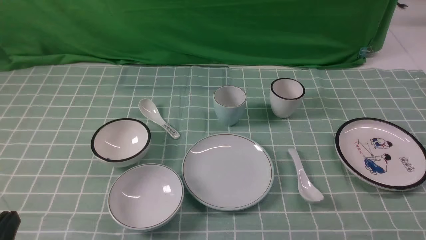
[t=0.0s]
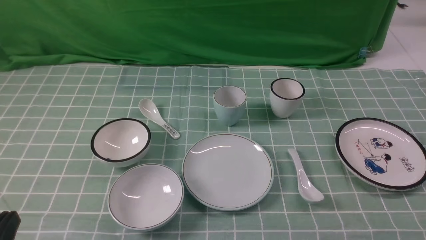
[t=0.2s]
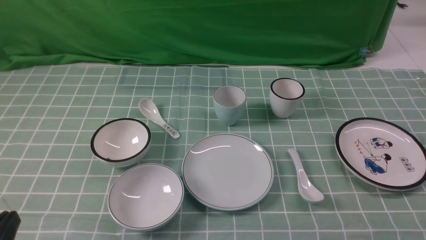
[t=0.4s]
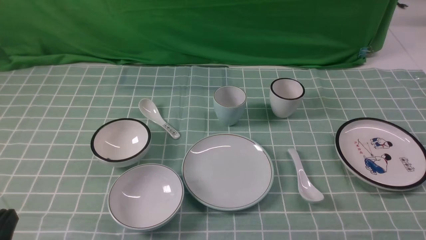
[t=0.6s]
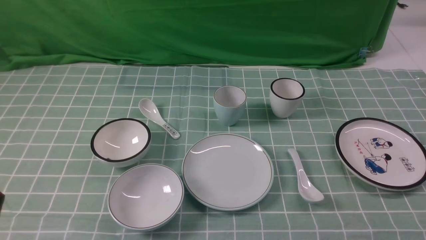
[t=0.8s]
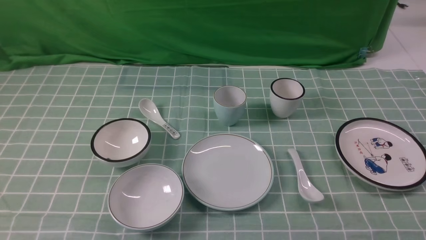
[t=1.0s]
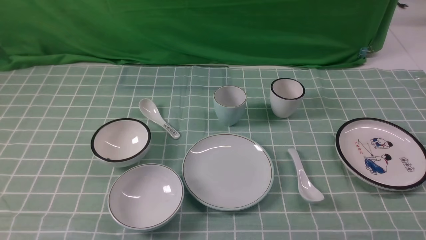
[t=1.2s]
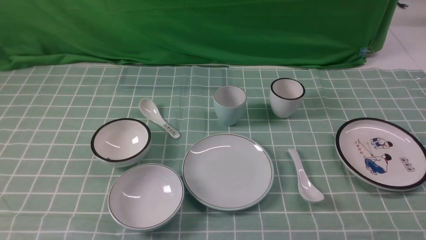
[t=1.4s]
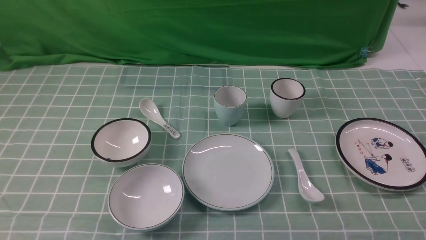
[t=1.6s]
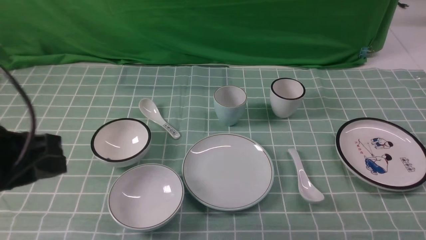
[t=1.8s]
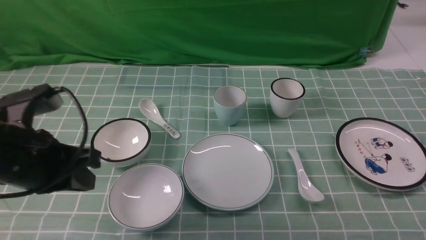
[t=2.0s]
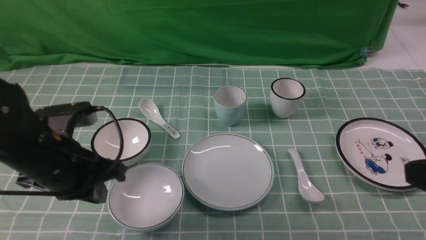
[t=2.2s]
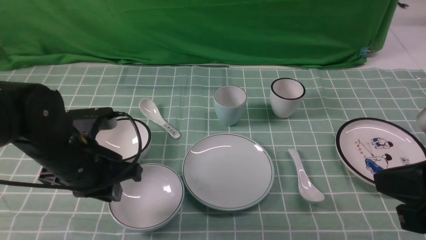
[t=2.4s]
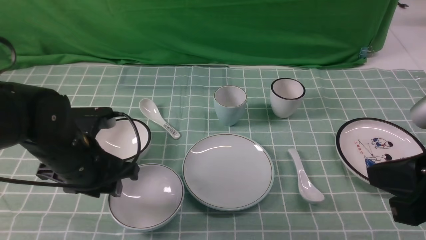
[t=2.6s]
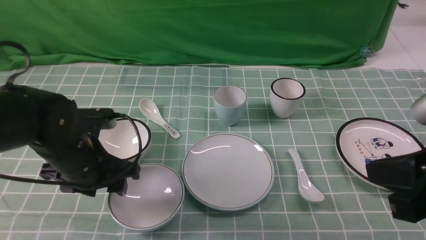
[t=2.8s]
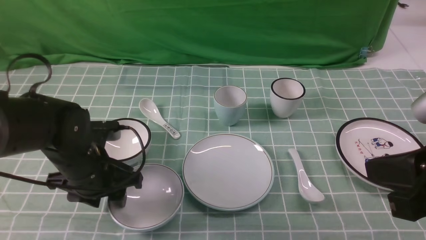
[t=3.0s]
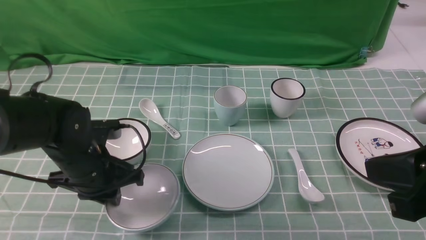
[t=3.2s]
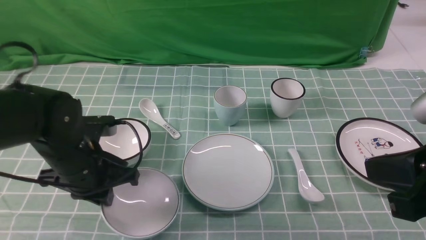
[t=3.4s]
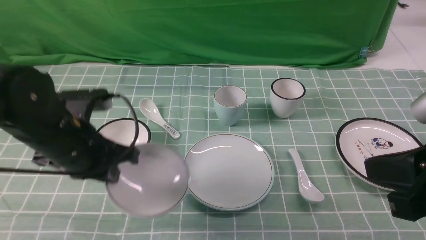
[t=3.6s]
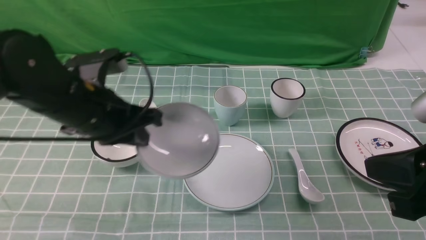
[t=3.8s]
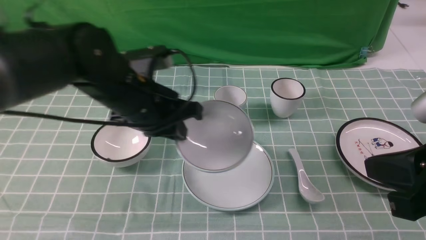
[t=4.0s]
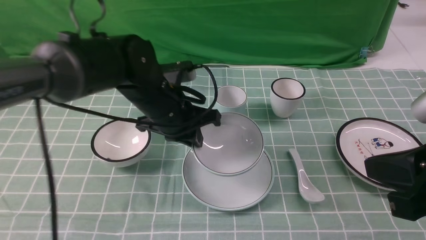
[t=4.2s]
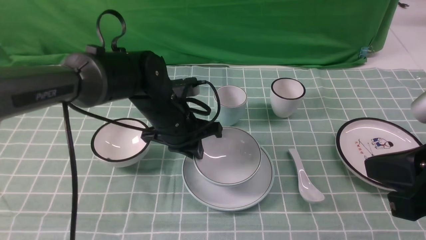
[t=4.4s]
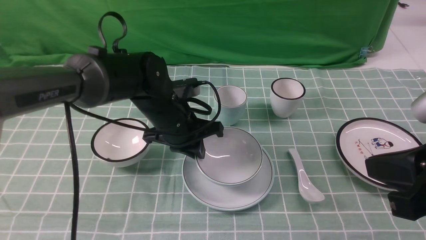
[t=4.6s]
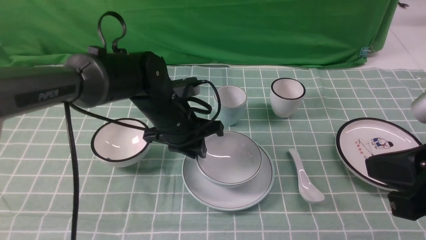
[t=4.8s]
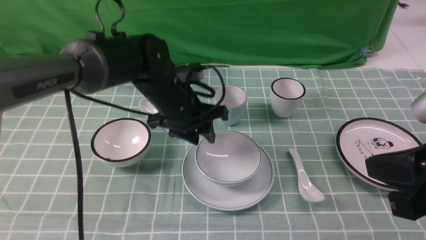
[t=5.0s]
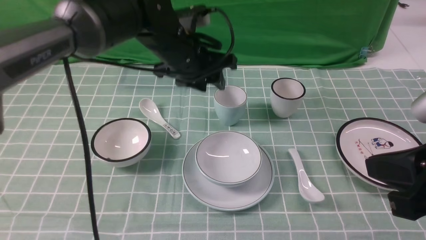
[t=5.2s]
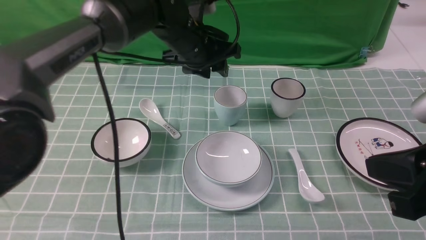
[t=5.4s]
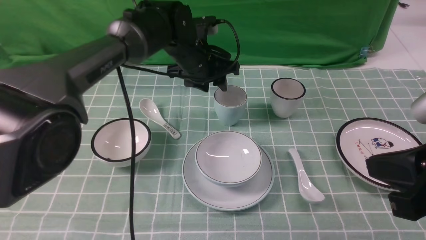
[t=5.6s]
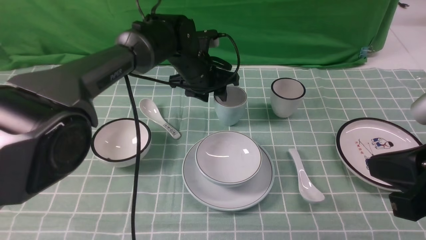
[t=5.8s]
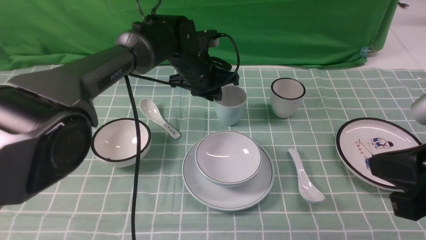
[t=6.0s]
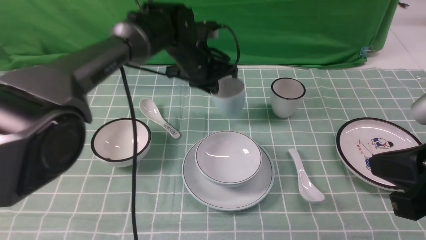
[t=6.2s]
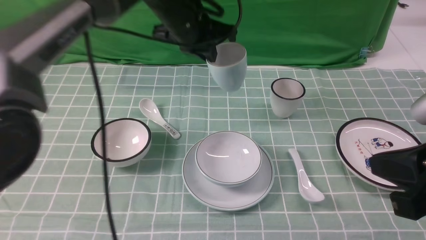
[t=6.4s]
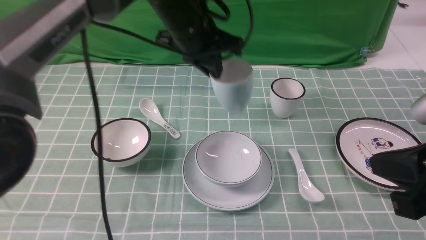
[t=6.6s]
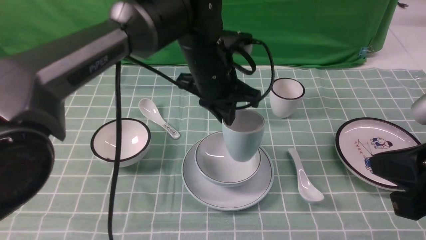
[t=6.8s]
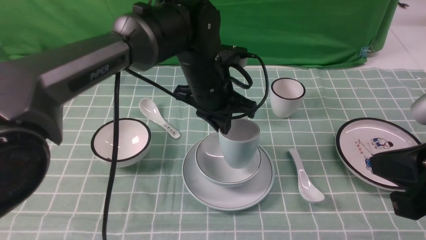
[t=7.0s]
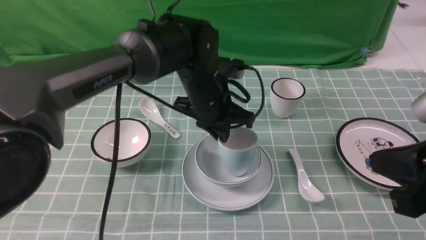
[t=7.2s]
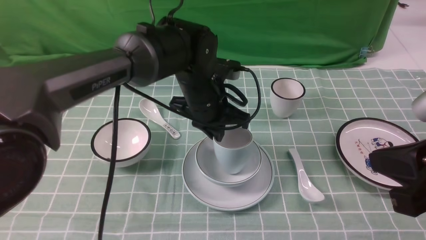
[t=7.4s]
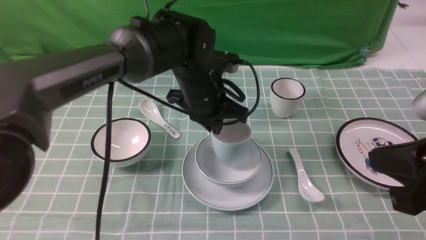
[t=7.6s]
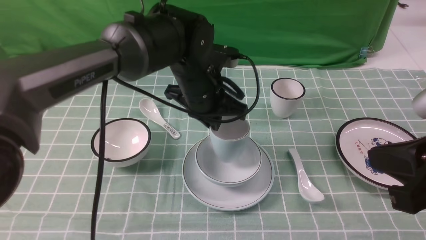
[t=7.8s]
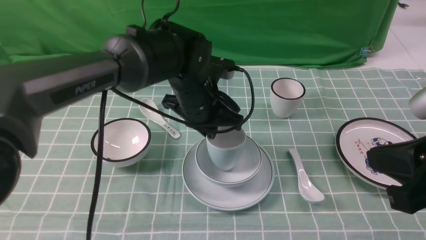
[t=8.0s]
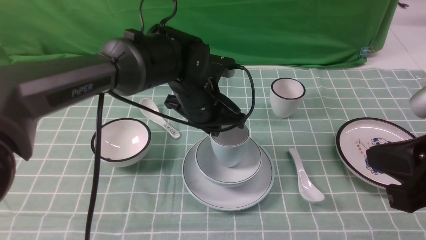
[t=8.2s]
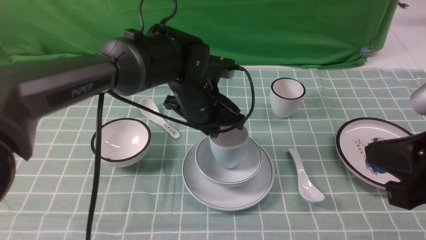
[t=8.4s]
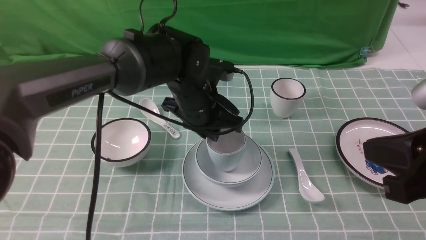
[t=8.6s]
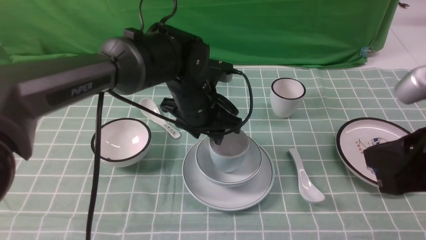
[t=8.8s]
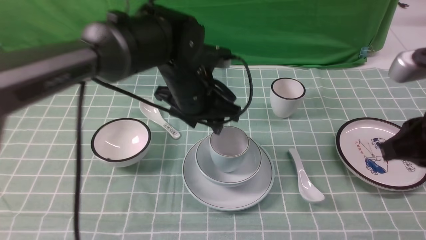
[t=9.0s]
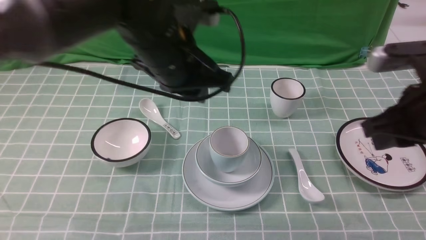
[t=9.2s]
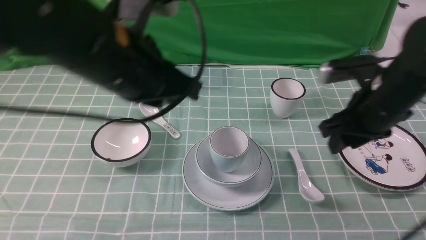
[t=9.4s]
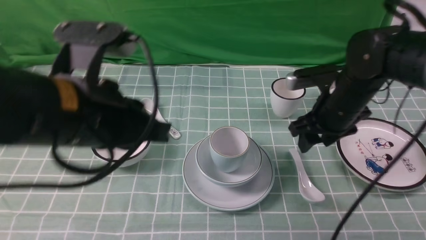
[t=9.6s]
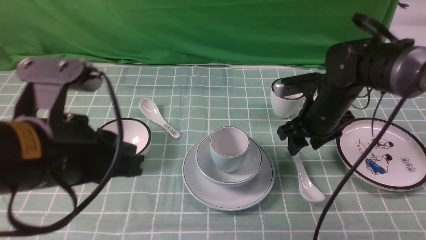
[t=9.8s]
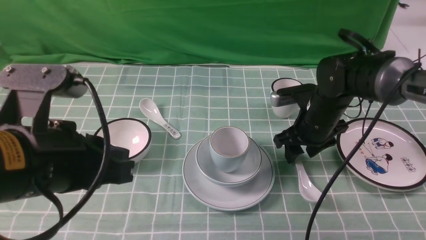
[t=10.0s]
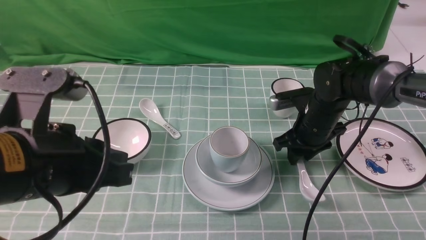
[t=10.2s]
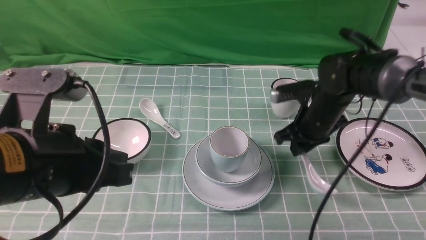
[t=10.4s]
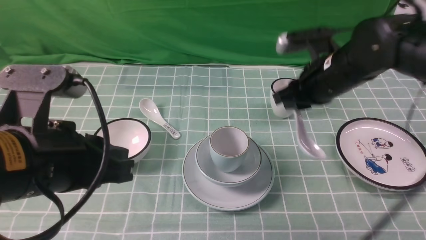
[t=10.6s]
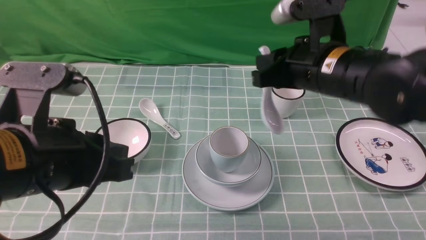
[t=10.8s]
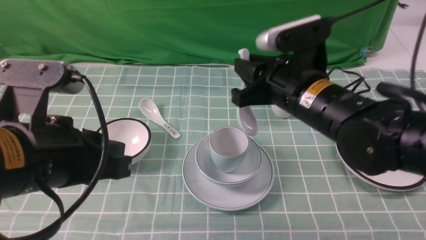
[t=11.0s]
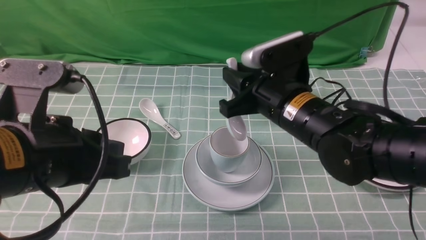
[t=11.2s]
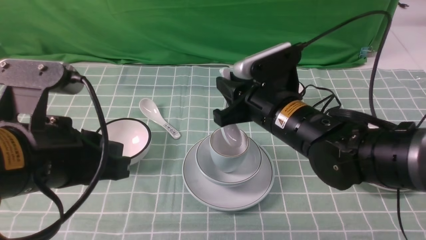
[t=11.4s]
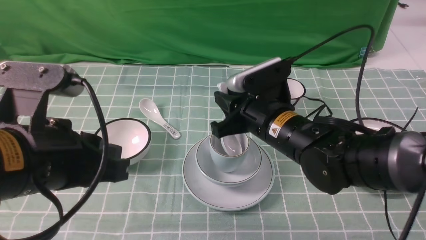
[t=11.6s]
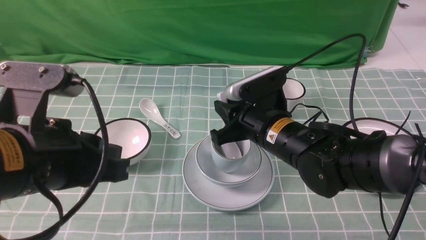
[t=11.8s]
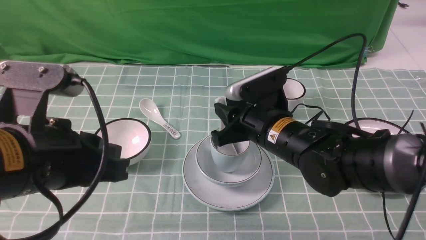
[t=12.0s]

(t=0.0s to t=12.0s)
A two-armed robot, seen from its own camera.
Task of the whole recording: place the bowls on the plates on the blue tablecloth, put the cups on the bowls, and place the spoons in the cups.
Step, t=0.0s - t=3.2s: Grasp the bowl with the left gripper.
Step, t=3.4s - t=4.8s: Place the bowl on the plate with the left gripper.
Step, t=5.0s - t=6.0s: Grasp the cup with the left gripper.
Step, t=6.2s - t=8.8s: Place the cup on the bowl with the left gripper.
Step, t=9.0s - t=10.2s: Grasp the spoon with the right gripper.
Step, t=10.4s - t=12.0s: Place the spoon on the cup with the right gripper.
t=1.6s - t=3.0s: The right gripper heads upward, to the left and forward, covering roughly 15 cm, and closes up, while the left gripper travels forward and downward by roughly 25 cm, and opens up.
t=3.0s - t=4.4s: The left gripper heads to the right and forward, covering roughly 15 cm, and closes.
t=4.4s - t=6.0s: The left gripper is displaced forward by approximately 10 cm, and opens its fingers.
t=6.0s - t=7.6s: The left gripper moves backward, about 10 cm, reaches about 10 cm upward, then returns, and closes up.
t=7.6s - t=9.0s: The left gripper opens up.
t=9.0s - t=10.4s: The right gripper travels forward and downward by some 25 cm, and opens; the left gripper heads backward and to the left, covering approximately 25 cm, and closes.
t=10.4s - t=12.0s: The right gripper moves backward and to the left, approximately 15 cm.

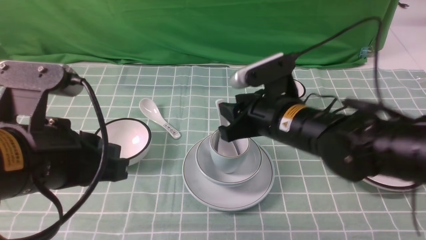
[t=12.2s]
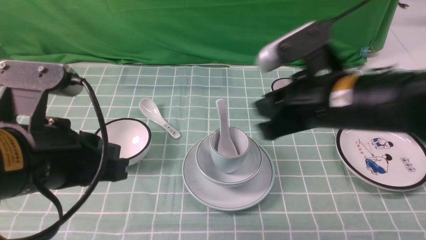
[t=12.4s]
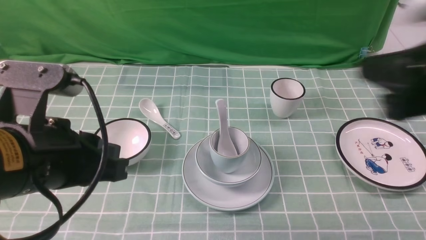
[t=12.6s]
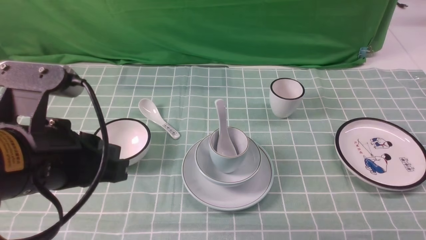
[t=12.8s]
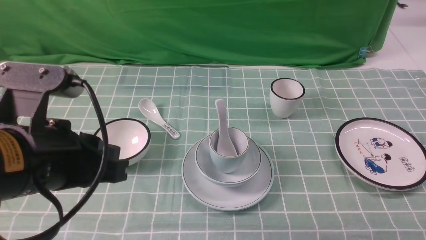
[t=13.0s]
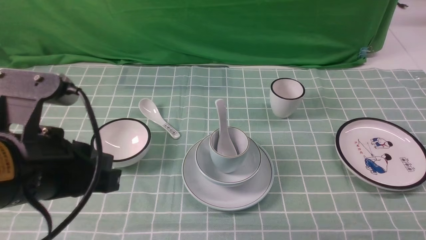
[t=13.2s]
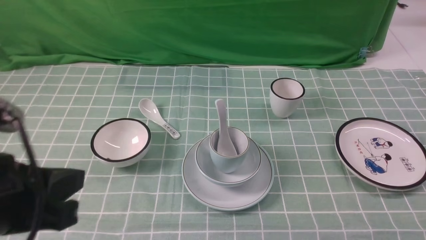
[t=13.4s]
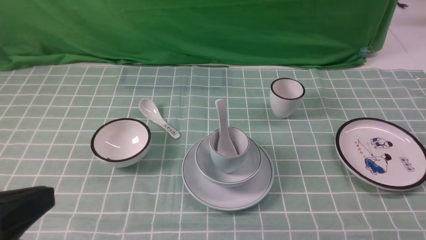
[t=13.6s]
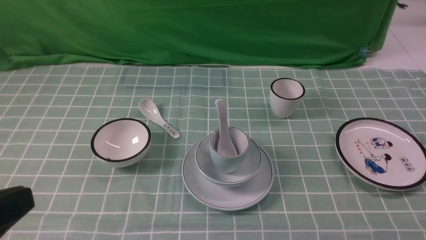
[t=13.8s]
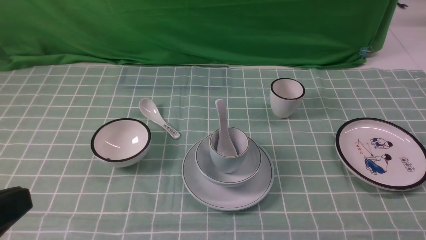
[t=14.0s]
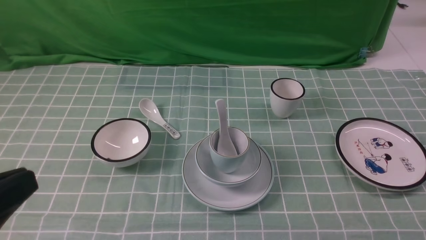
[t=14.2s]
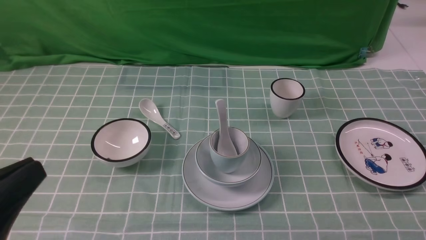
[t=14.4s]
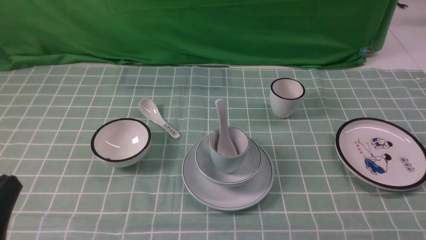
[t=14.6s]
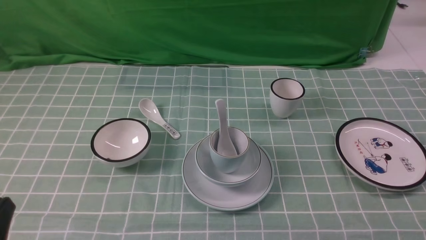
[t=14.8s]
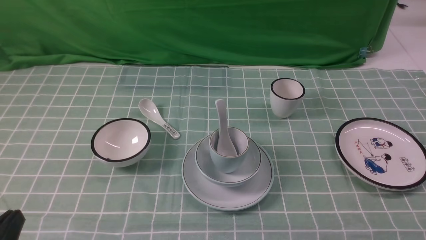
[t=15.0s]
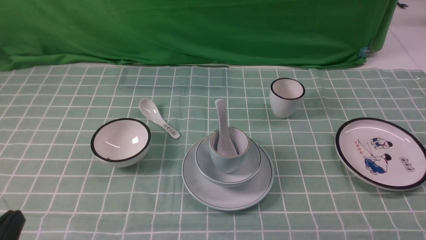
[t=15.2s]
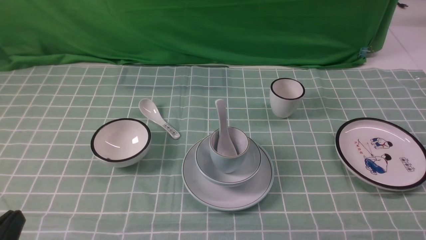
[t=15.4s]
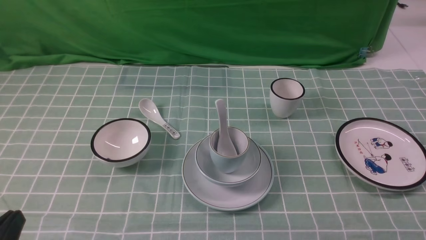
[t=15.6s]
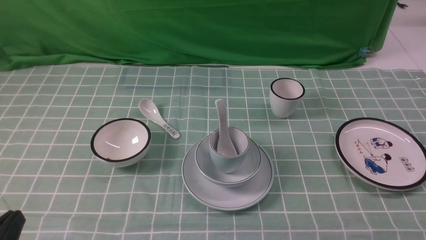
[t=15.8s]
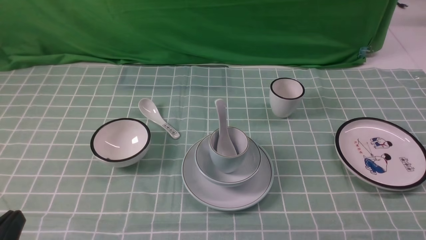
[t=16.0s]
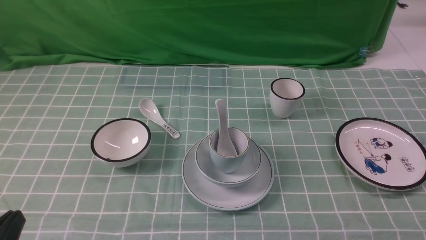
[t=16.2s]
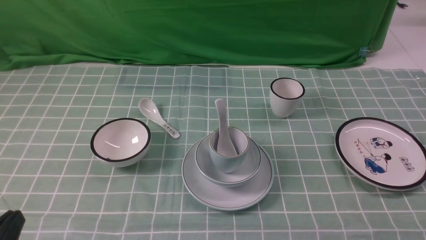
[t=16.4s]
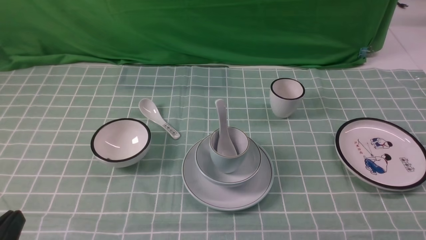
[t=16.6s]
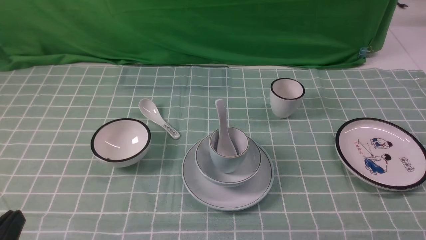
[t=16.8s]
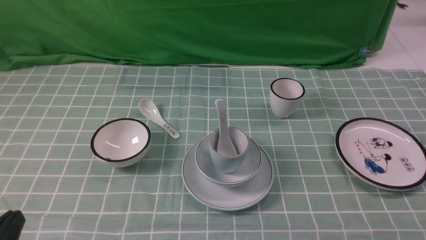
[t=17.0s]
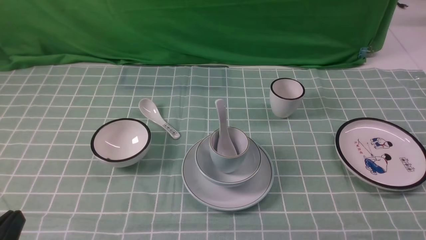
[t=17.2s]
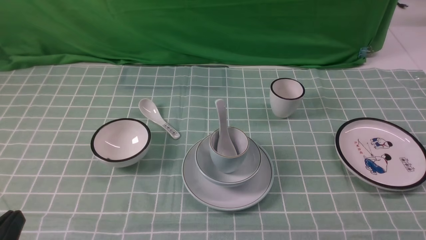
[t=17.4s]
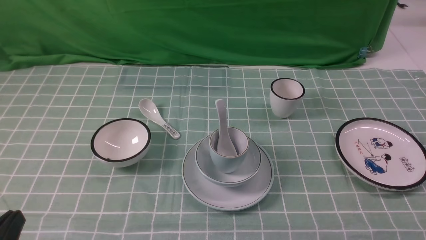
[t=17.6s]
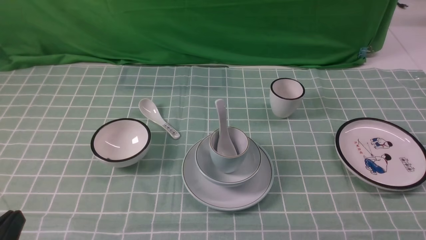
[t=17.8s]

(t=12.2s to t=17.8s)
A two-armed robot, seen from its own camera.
Task of the whole recording: place the bowls on the plates on the blue tablecloth, put the cups on the bowls, and place the spoons in the cups.
t=12.2s - t=13.6s: The left gripper moves backward, roughly 5 cm. Meanwhile the right gripper is displaced backward and to the right by about 30 cm, and closes.
t=13.6s - t=15.0s: The left gripper is displaced downward by about 10 cm.
